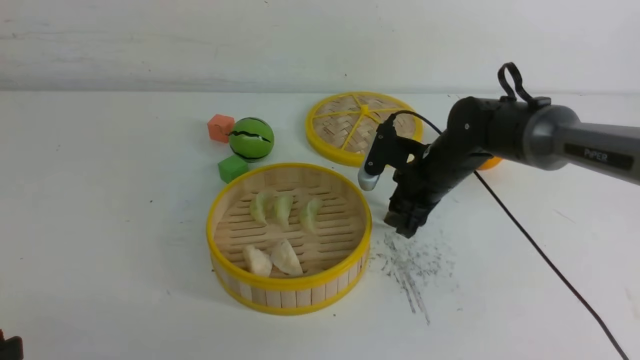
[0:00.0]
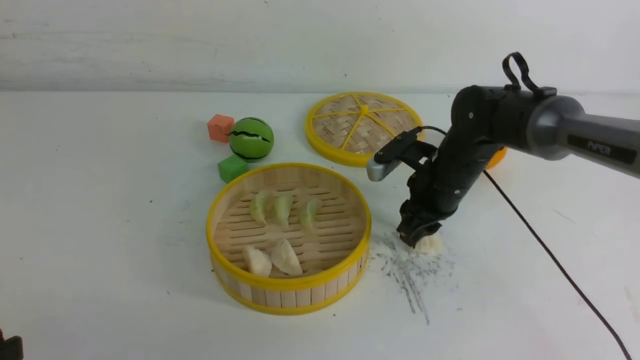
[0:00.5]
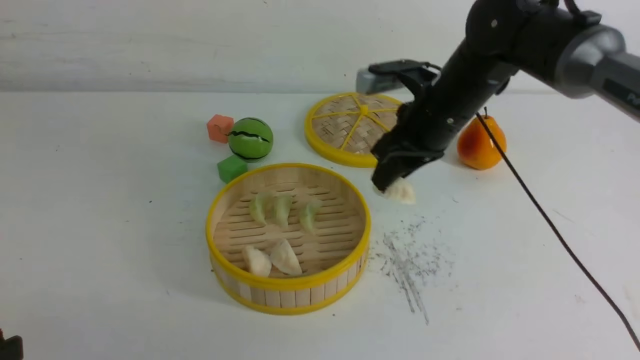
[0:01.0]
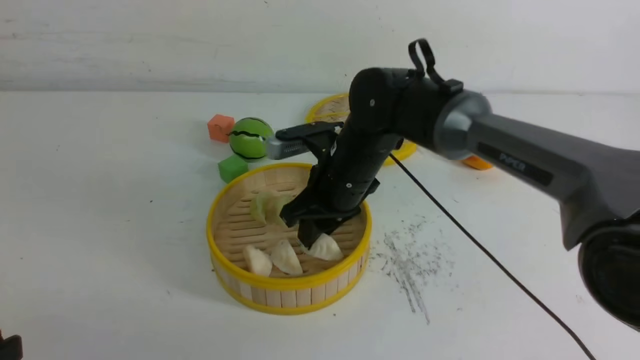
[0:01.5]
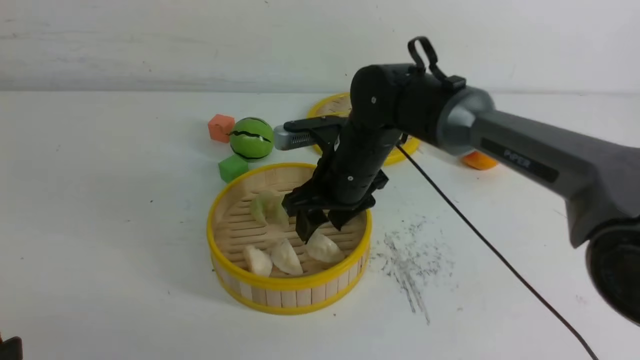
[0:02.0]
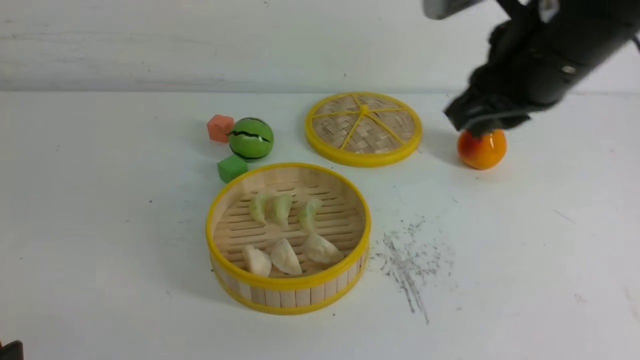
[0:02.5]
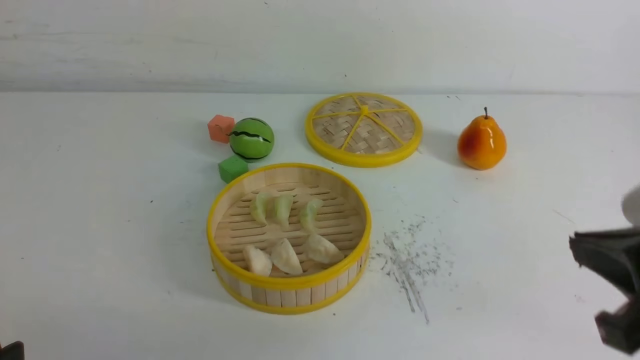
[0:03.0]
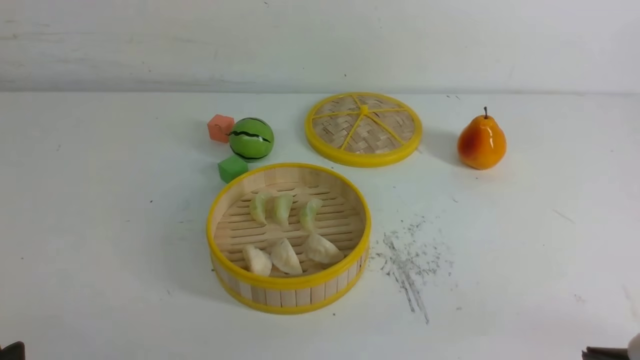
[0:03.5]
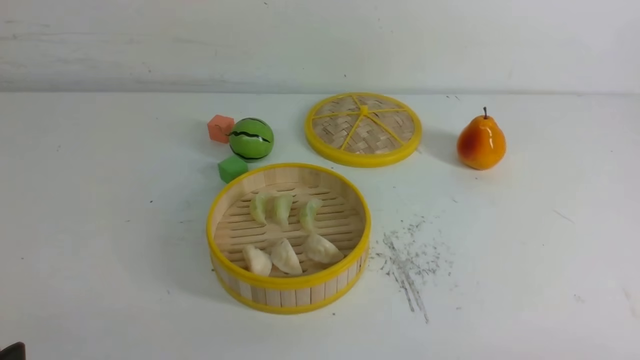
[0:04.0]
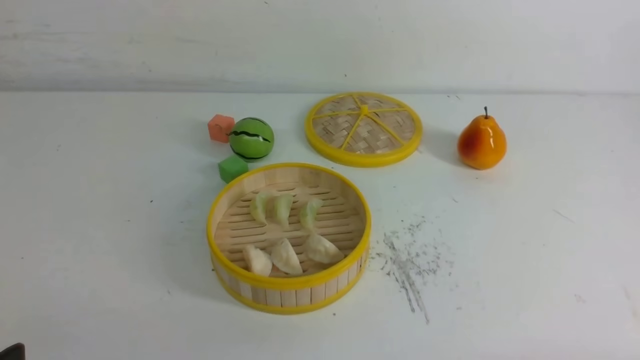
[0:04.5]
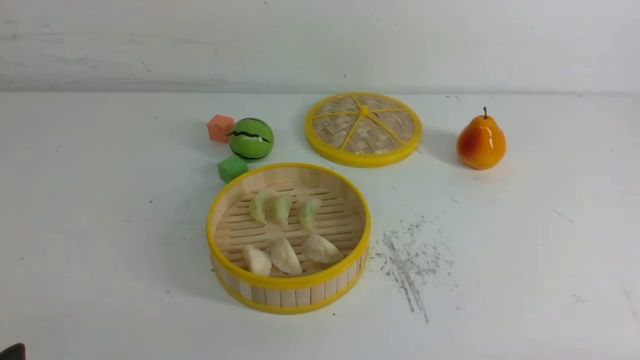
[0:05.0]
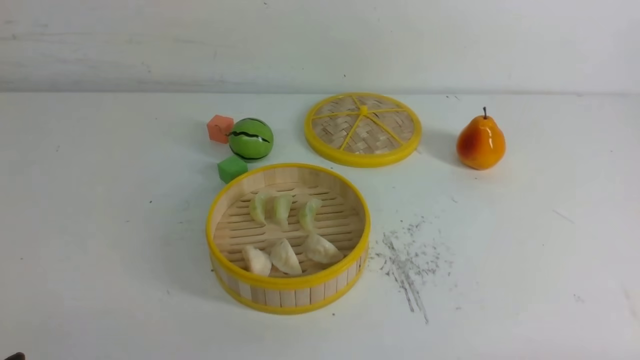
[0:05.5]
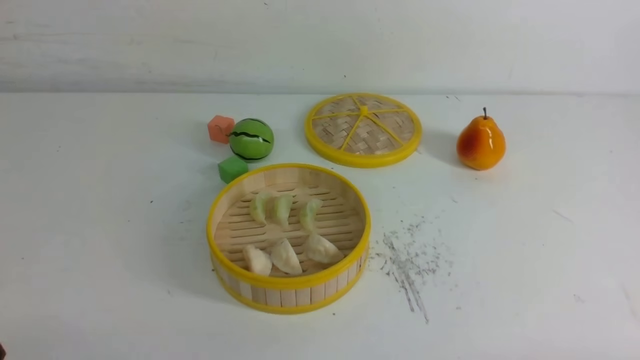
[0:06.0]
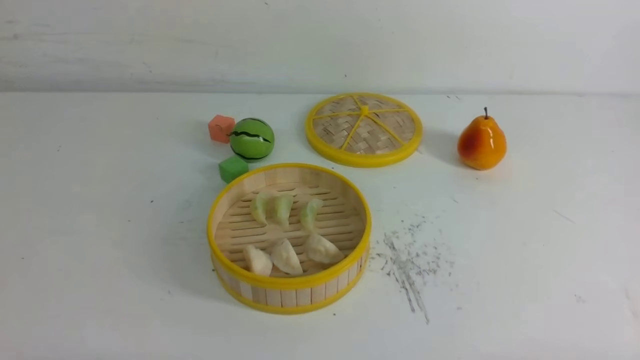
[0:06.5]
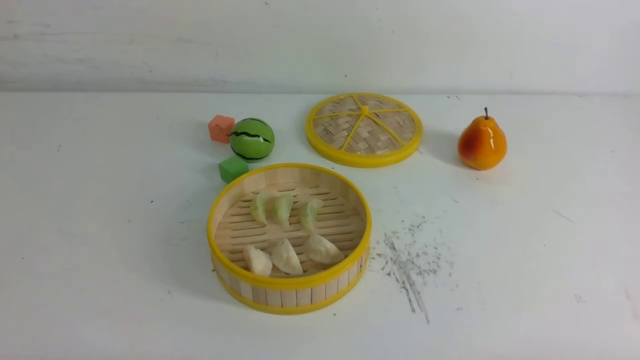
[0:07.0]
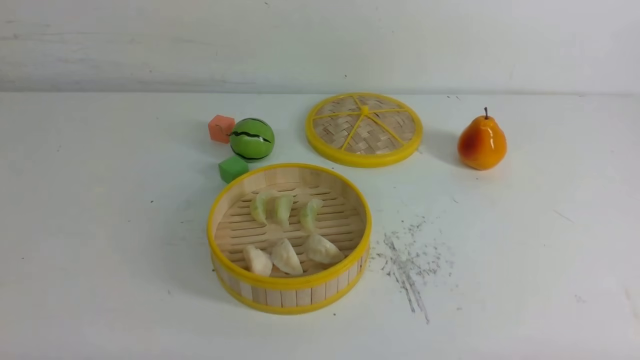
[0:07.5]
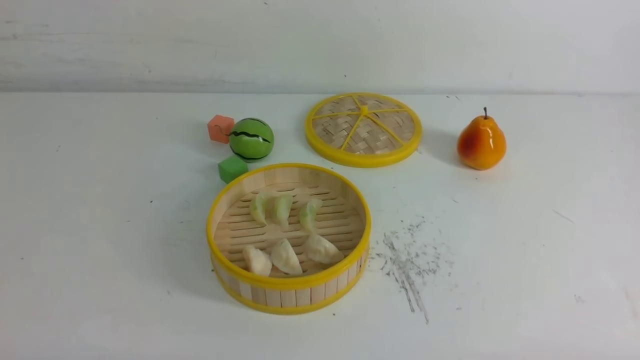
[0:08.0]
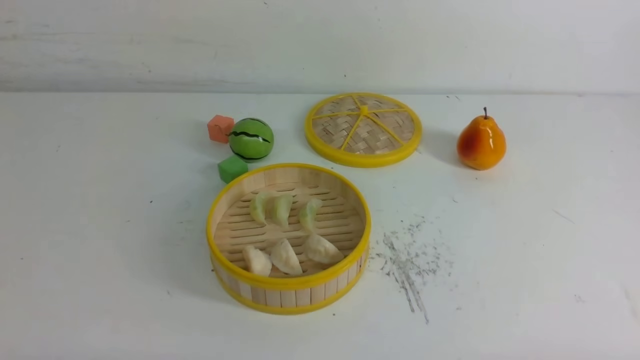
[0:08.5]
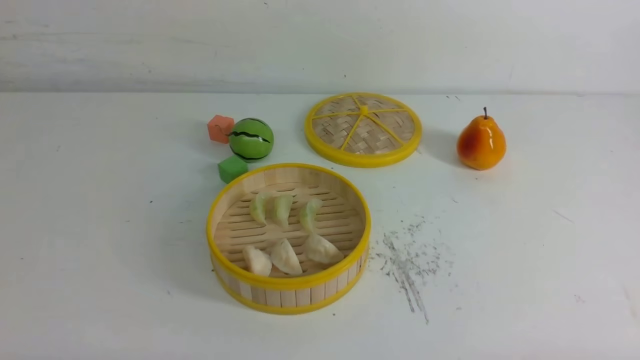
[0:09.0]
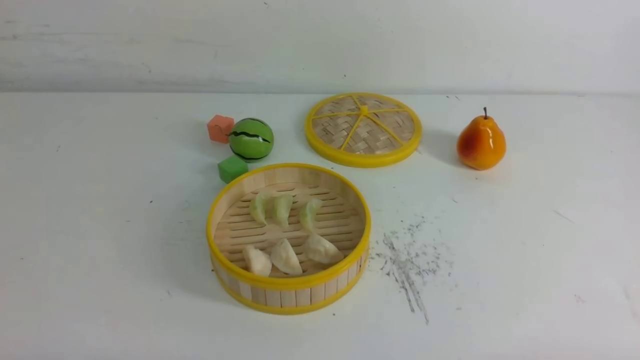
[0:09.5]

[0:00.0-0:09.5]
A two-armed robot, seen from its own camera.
Task of the whole recording: put the dumplings into the steamer on the white table.
Step, 0:01.0 to 0:01.5: use the right arm to put the dumpling into the steamer.
0:00.0 to 0:02.0: The right gripper goes about 15 cm to the left and upward.
0:02.0 to 0:04.0: The right gripper travels backward and to the right by approximately 40 cm, and closes its fingers.
0:07.5 to 0:09.5: Neither gripper changes place.

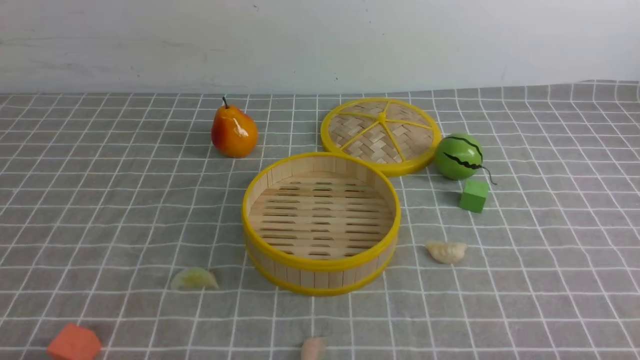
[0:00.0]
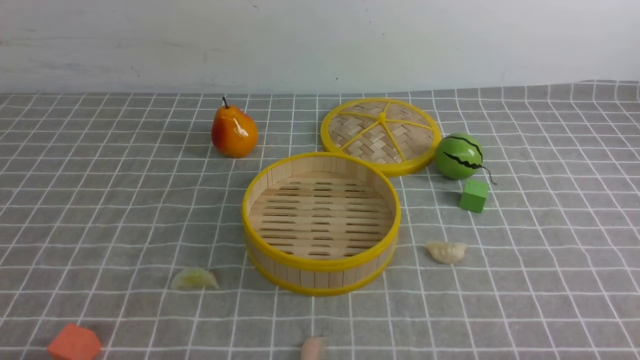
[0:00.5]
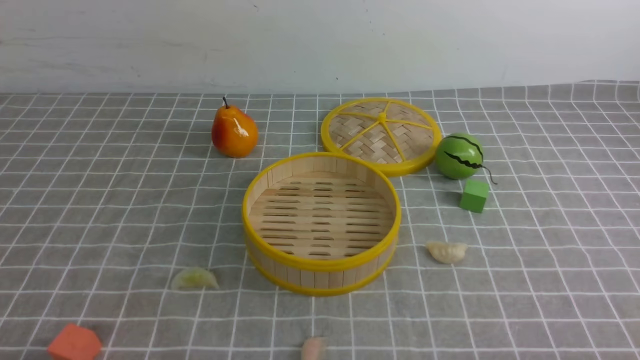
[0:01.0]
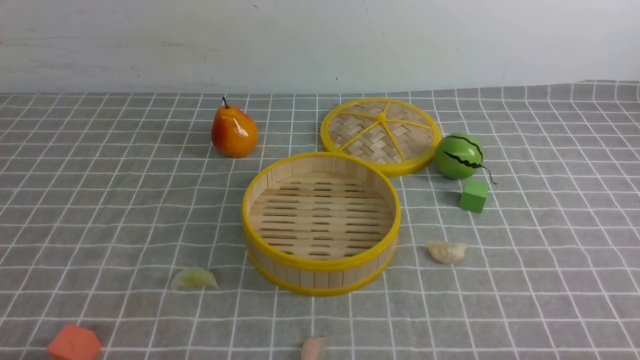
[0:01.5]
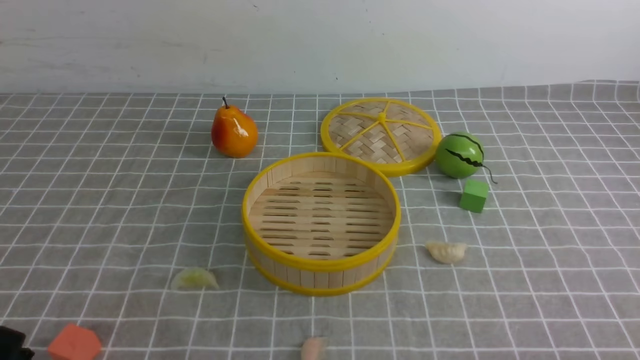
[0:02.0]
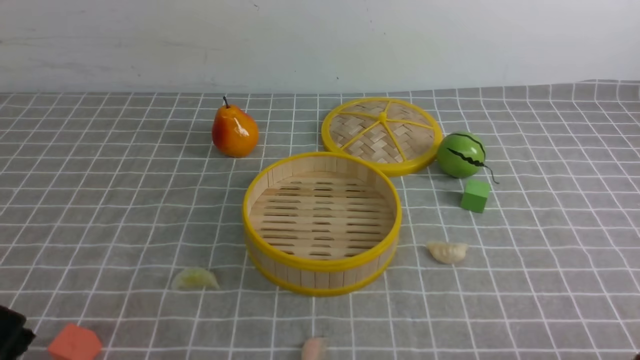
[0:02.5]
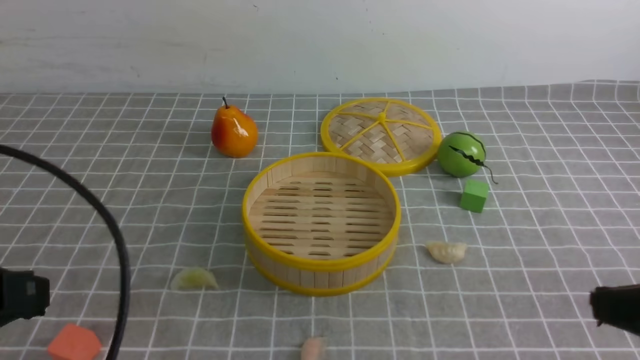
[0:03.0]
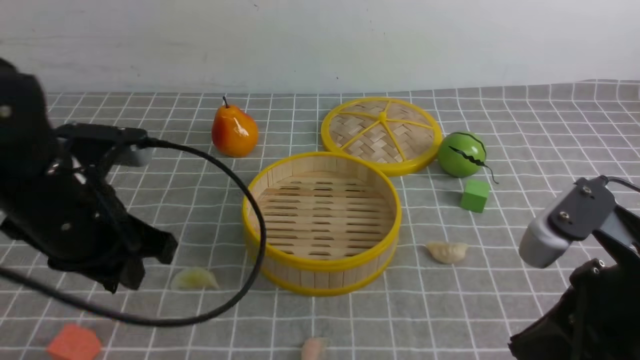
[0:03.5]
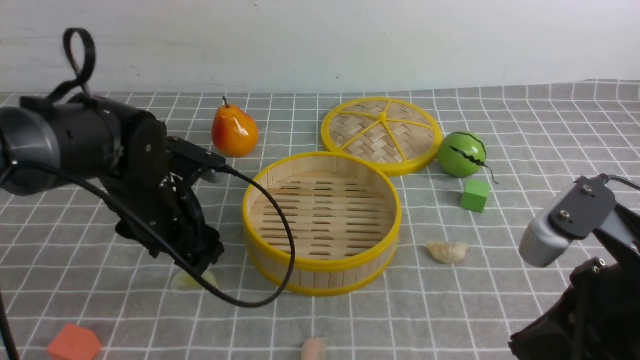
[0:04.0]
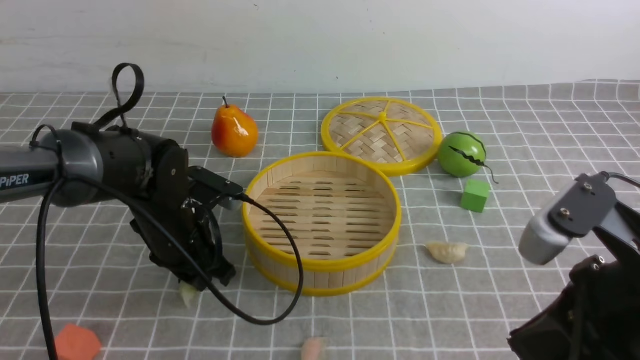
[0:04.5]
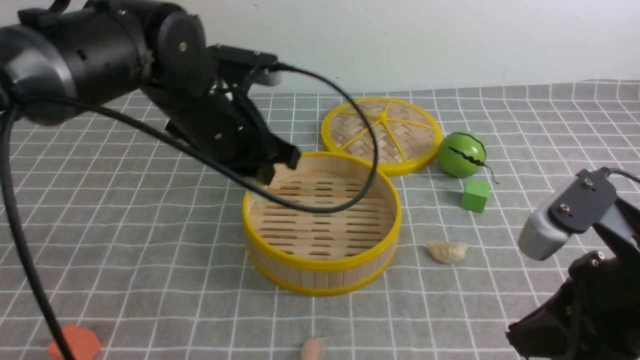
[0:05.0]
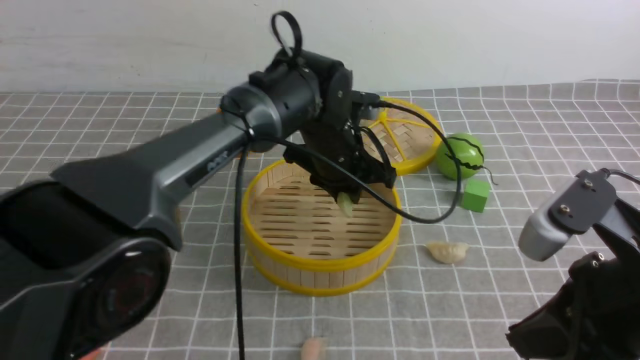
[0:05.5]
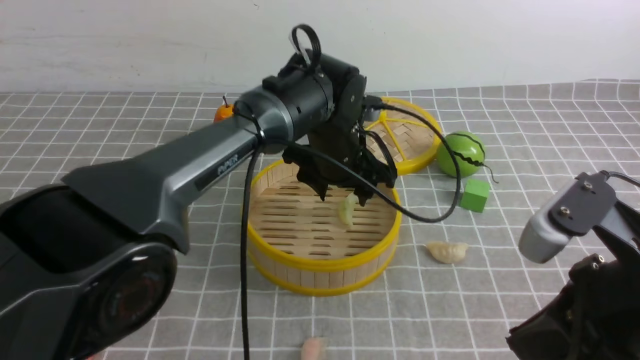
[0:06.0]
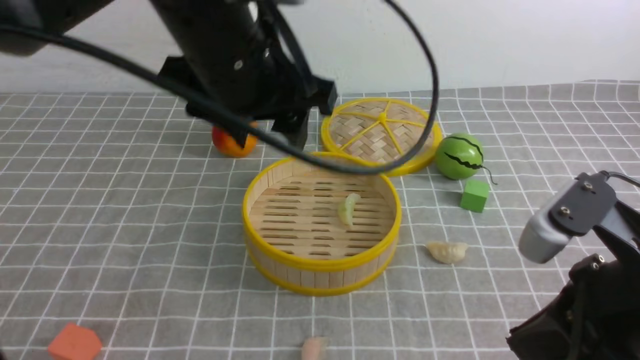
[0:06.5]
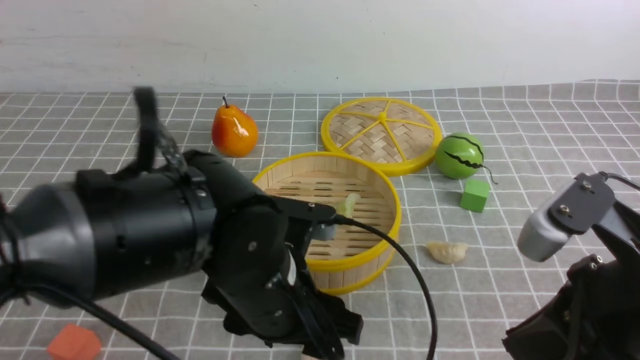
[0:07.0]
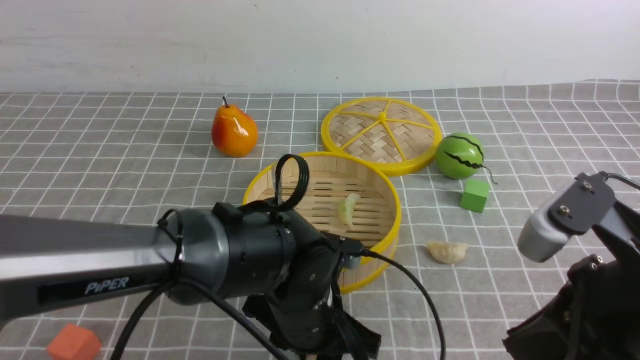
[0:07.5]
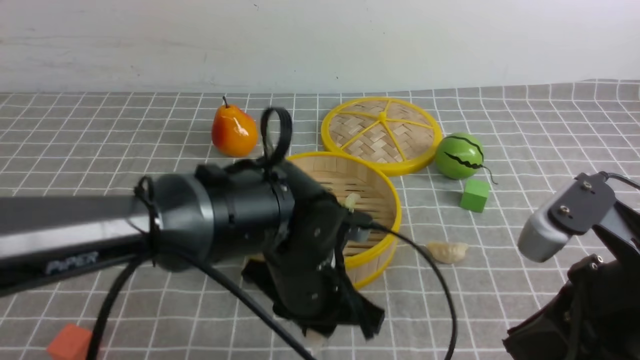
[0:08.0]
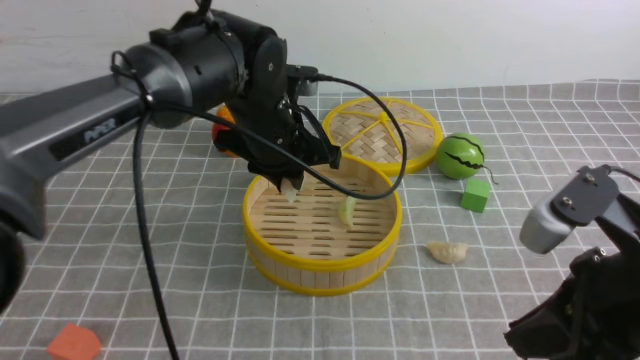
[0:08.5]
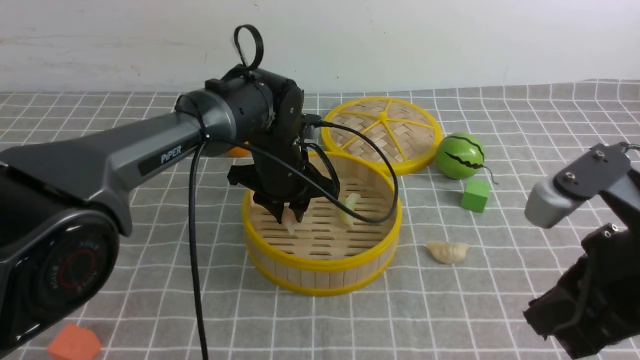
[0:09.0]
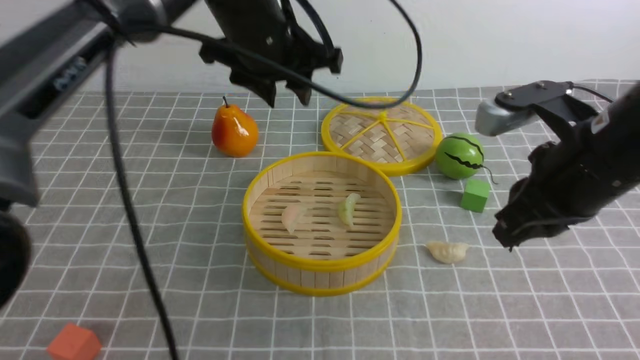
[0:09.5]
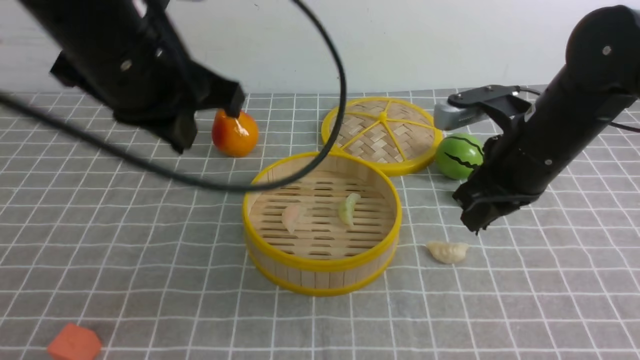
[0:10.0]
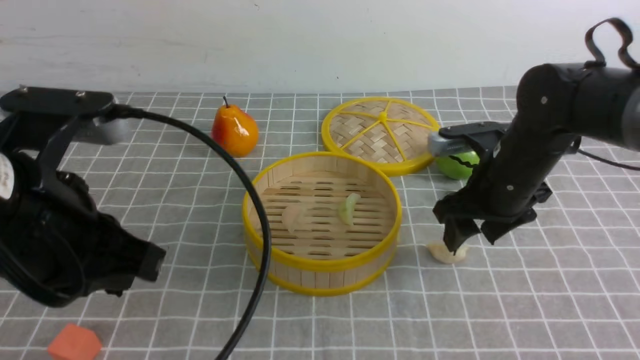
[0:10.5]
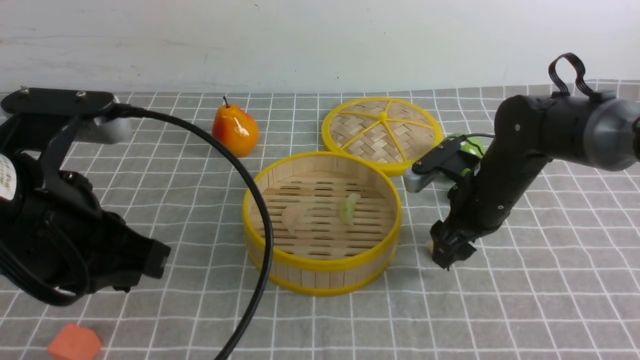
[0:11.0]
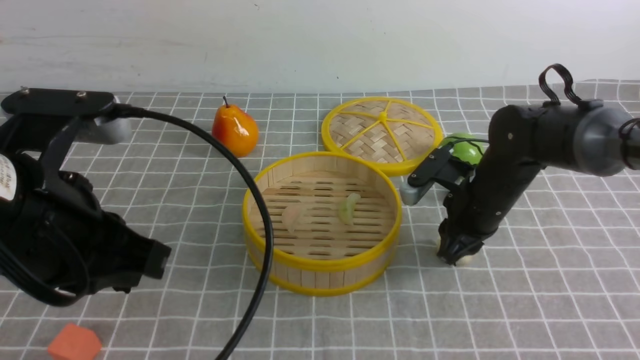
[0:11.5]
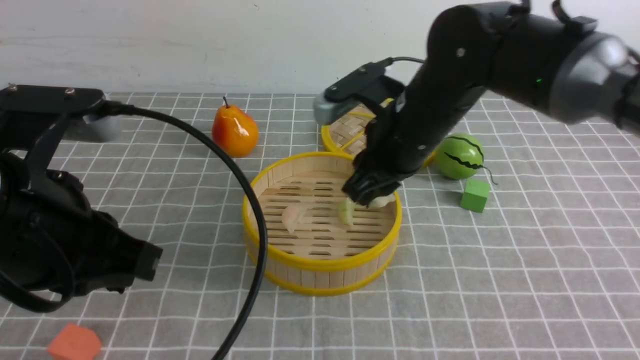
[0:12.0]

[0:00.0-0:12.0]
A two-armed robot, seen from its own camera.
Task of the whole recording: put the dumplings into the steamer on the table with the grey tablecloth.
Step, 0:00.0 to 0:04.5: use the left arm to grab a dumpling.
Step, 0:05.0 to 0:06.0: use the left arm to put the dumpling into the steamer.
Step, 0:06.5 to 0:08.0: use the left arm to grab a dumpling.
Step, 0:08.5 to 0:09.0: use the left arm to put the dumpling into the steamer.
Step, 0:09.5 to 0:11.5: use the right arm to grab a dumpling.
0:02.0 to 0:04.0: The right gripper shifts some 20 cm upward, forward and to the left, and closes. The left gripper heads forward, covering about 30 cm, and opens its fingers.
0:04.0 to 0:06.0: The left gripper travels to the right and forward by some 20 cm, and closes and opens again.
0:06.0 to 0:08.0: The left gripper moves up and down over about 20 cm, changing direction 2 times, and closes.
0:08.0 to 0:10.0: The right gripper moves forward, approximately 20 cm, while the left gripper swings up and down, roughly 20 cm each way, with 2 reversals.
0:10.0 to 0:12.0: The right gripper is displaced to the left by about 10 cm, and opens, then closes once more. The left gripper is displaced backward and downward by about 10 cm.
